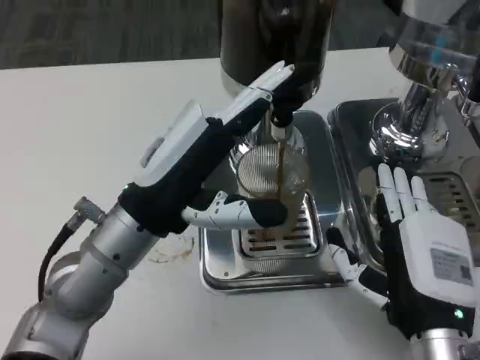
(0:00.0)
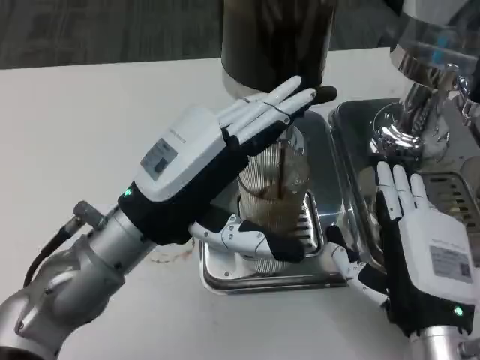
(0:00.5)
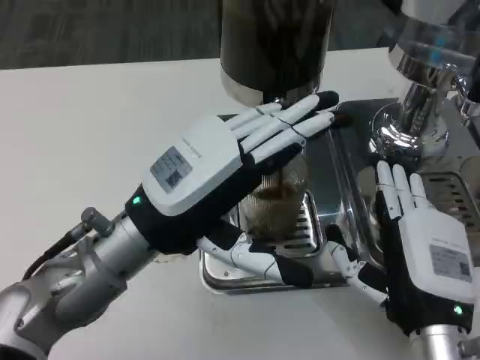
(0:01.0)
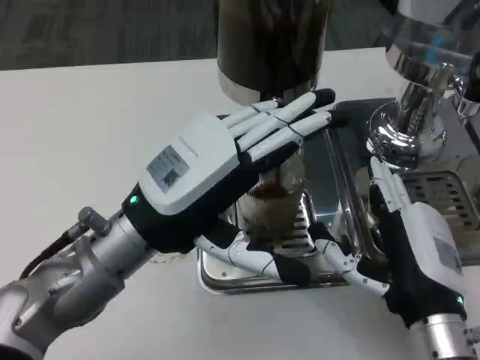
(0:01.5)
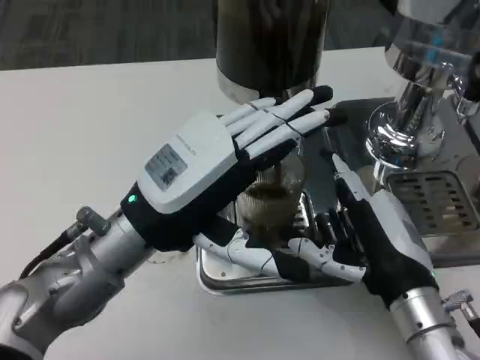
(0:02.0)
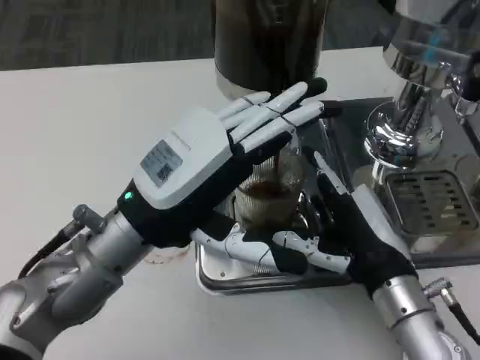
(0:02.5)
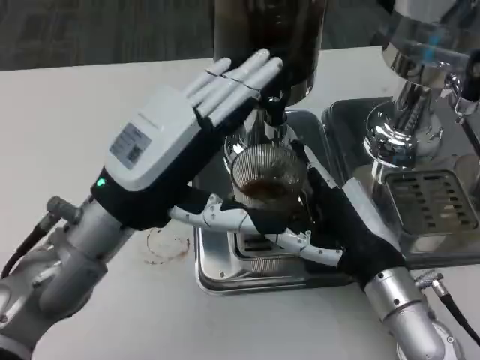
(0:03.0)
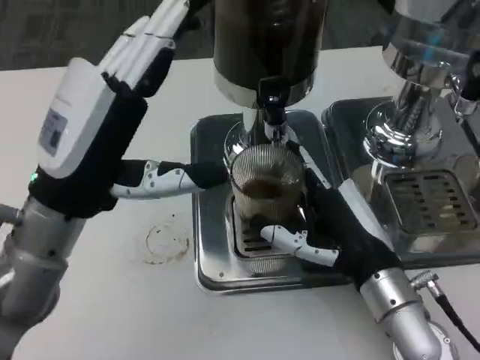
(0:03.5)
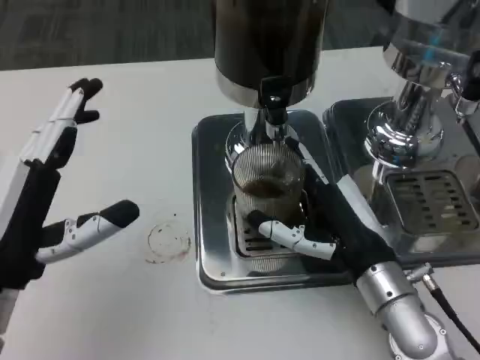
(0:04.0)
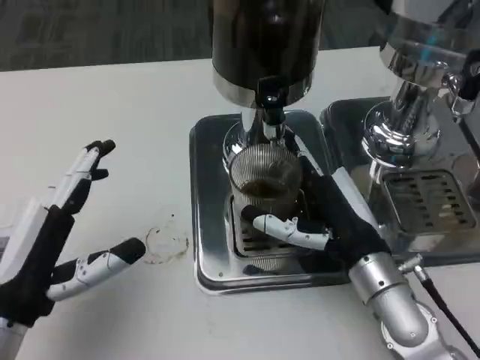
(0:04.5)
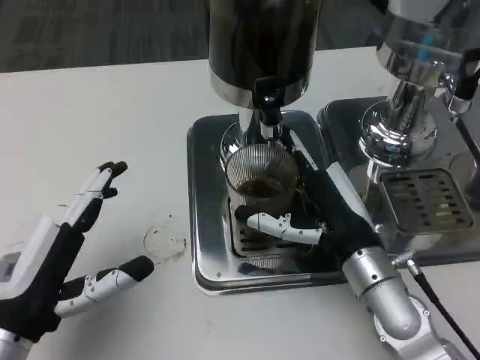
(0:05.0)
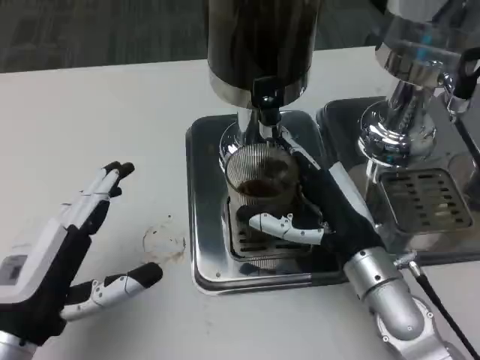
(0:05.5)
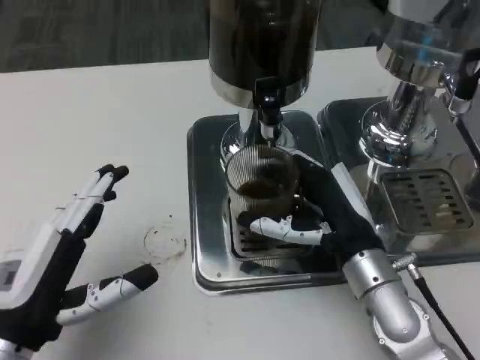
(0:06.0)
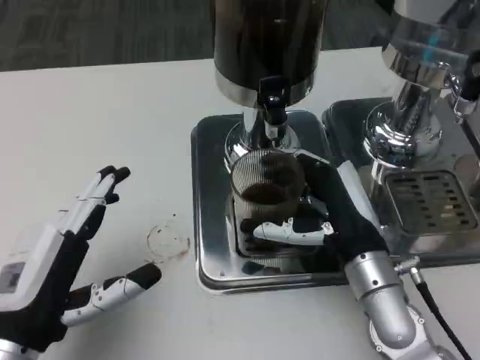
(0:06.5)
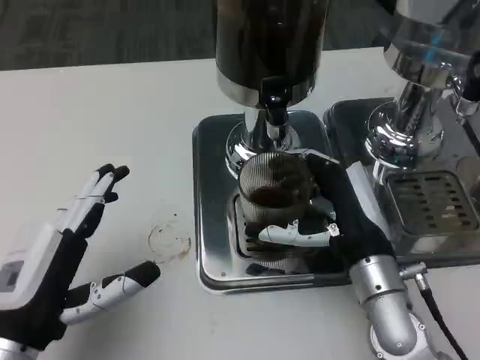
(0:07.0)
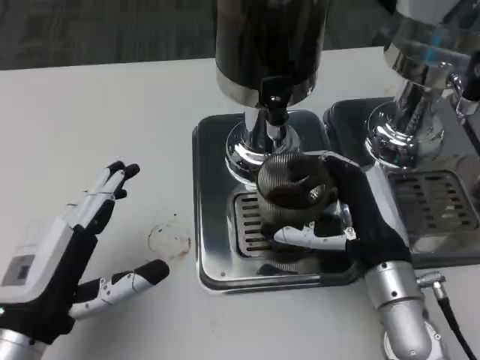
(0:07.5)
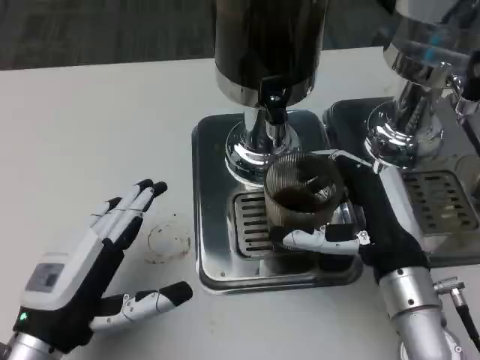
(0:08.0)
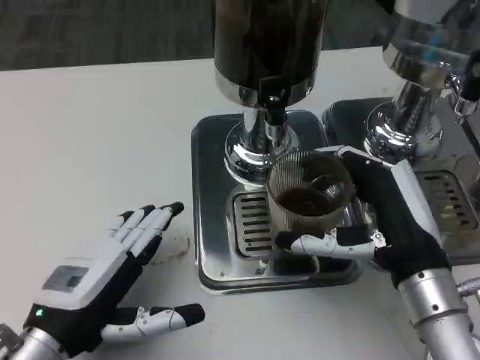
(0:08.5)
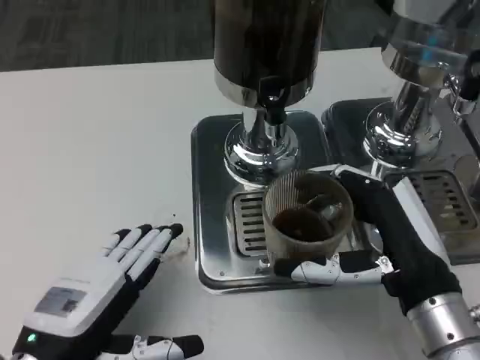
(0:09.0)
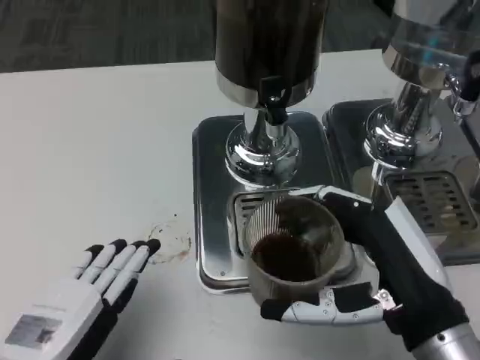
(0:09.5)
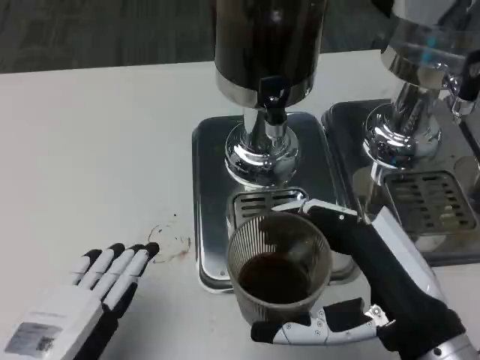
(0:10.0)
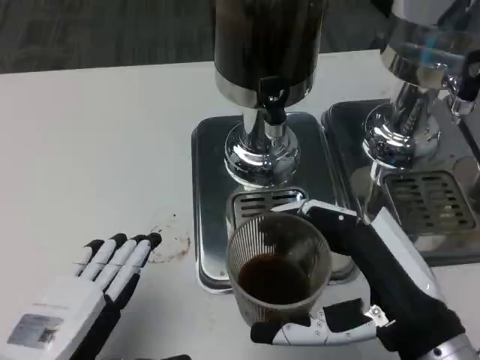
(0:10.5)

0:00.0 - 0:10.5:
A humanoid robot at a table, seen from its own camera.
Task of the whole recording: Grasp the cup under the faucet to collect the drink, then remove the cup.
0:02.0 - 0:04.0: The left hand heads to the left and backward, covering some 10 cm.
0:04.0 - 0:06.5: The left hand moves some 5 cm.
0:06.5 - 0:08.5: The right hand ends up some 5 cm from where it was.
0:08.5 - 0:10.5: Both hands move backward, approximately 5 cm.

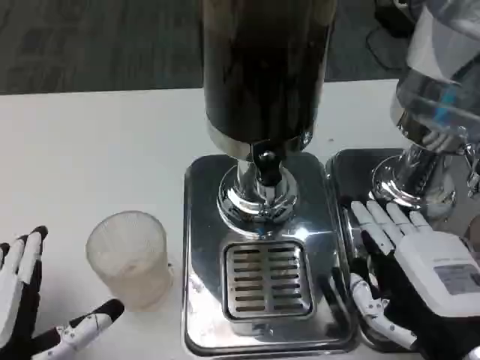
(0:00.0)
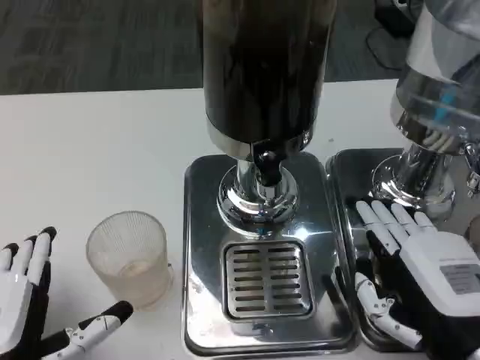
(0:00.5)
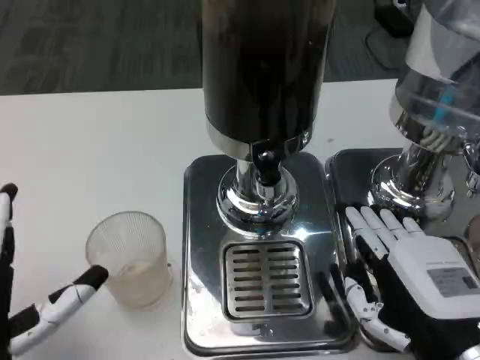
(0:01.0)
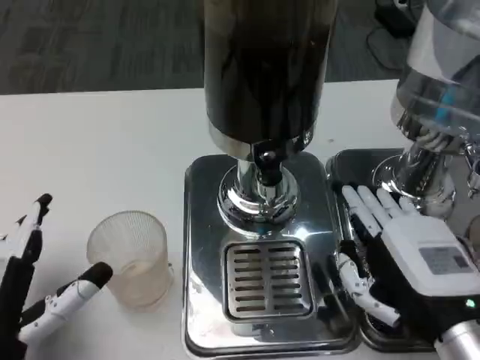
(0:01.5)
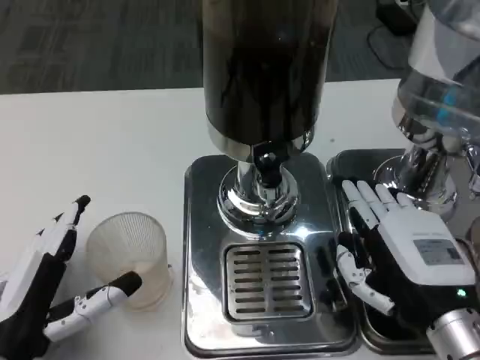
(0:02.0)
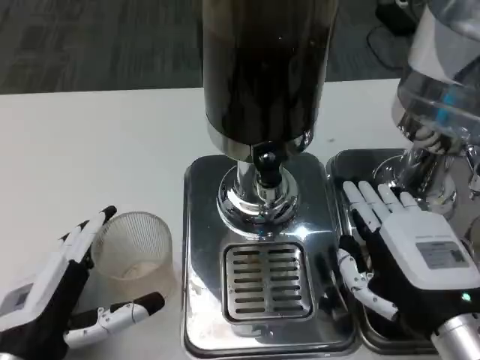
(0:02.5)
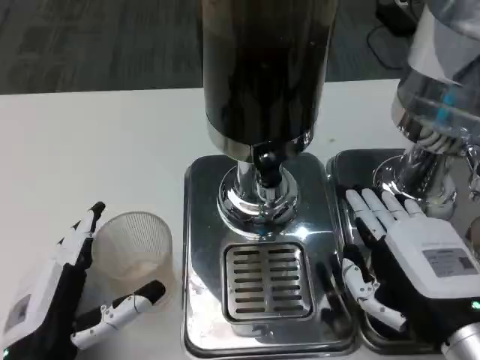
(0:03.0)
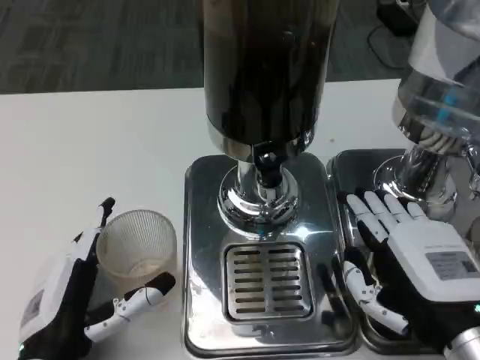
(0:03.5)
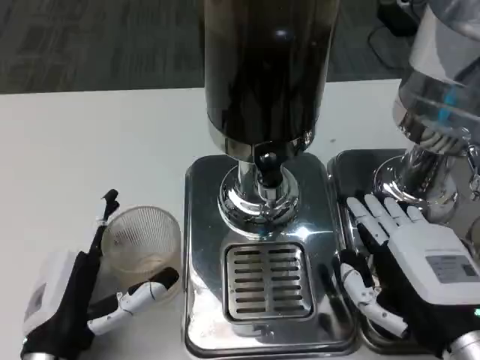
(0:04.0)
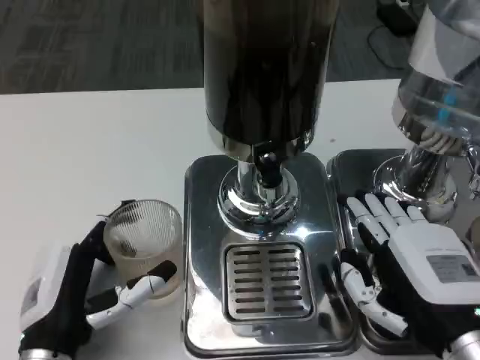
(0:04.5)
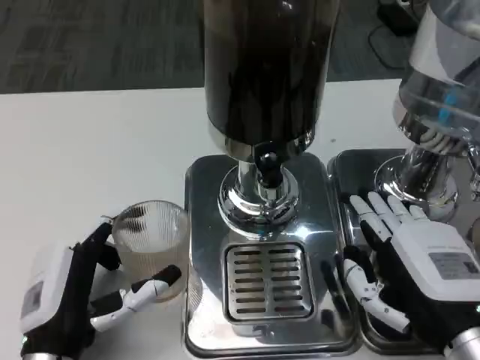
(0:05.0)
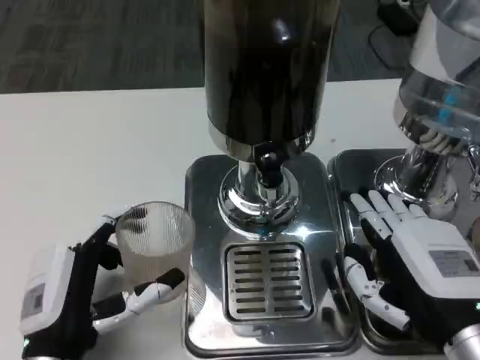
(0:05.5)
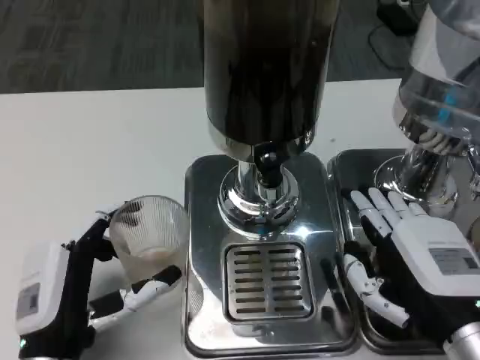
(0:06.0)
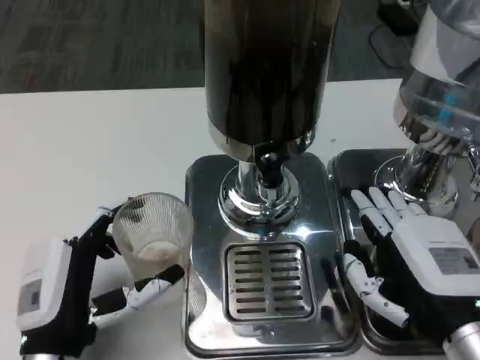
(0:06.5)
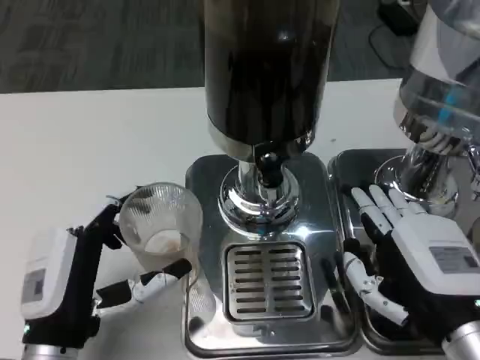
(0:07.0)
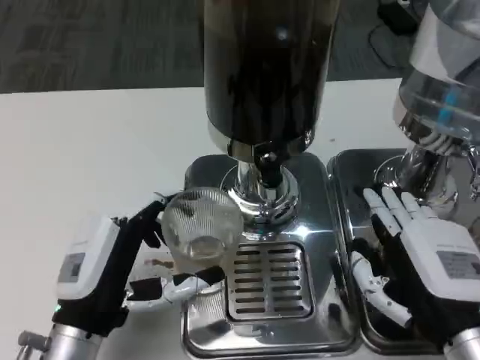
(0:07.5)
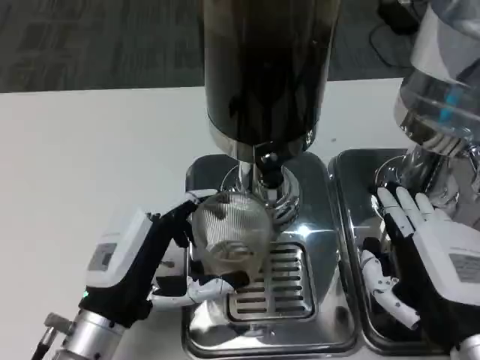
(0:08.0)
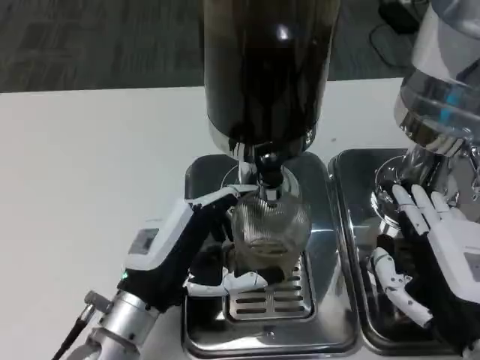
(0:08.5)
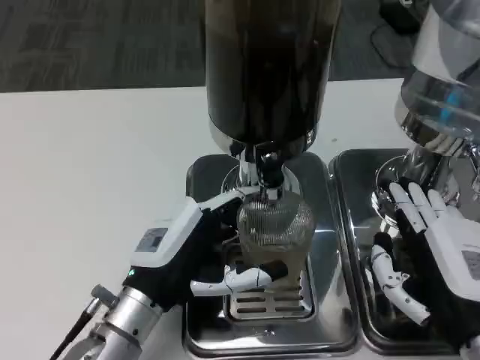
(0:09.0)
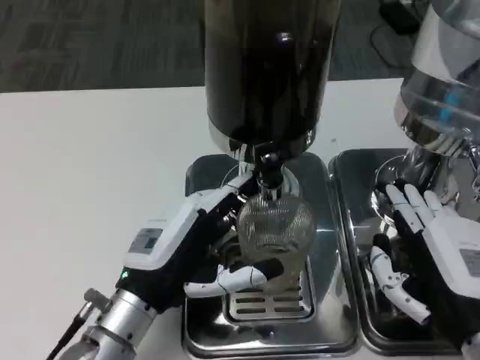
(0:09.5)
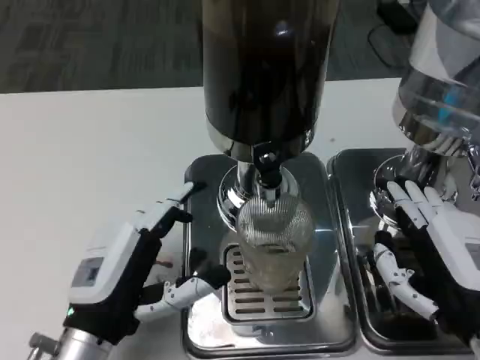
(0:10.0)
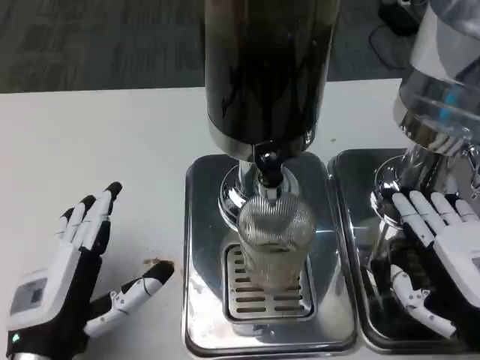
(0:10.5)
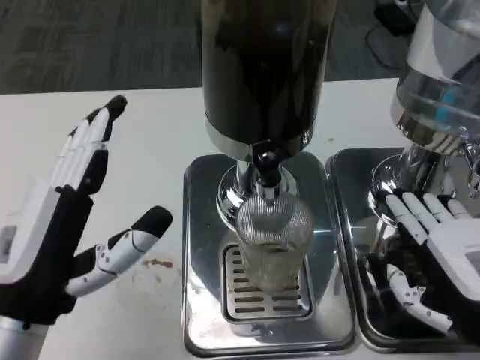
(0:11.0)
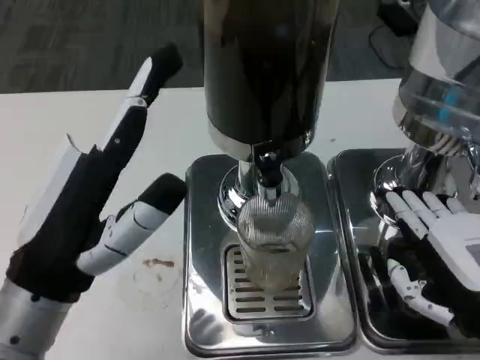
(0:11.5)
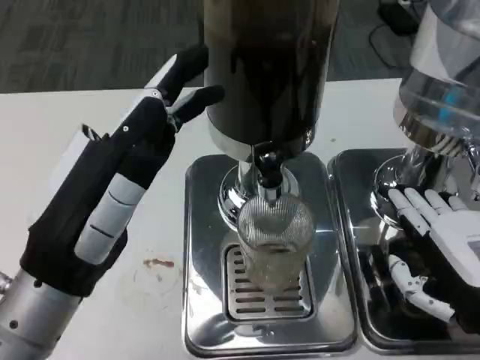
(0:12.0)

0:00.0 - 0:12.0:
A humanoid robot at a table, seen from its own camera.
Task of the whole recording: Grasp the cup under the faucet to collect the drink, then remove the cup.
0:00.0 - 0:02.0: The left hand moves some 5 cm.
0:02.0 - 0:04.0: The left hand ends up approximately 5 cm from where it was.
0:04.0 - 0:06.0: There are only small adjustments of the hands.
0:06.0 - 0:08.0: The left hand ends up about 5 cm from where it was.
0:10.0 - 0:12.0: The left hand goes approximately 10 cm upward.

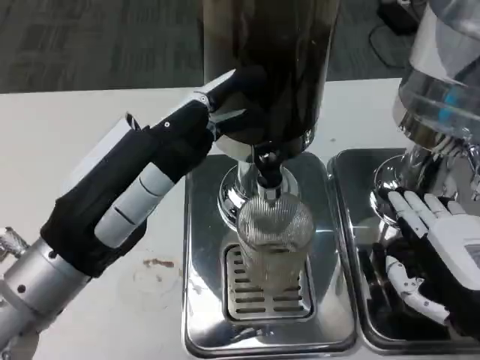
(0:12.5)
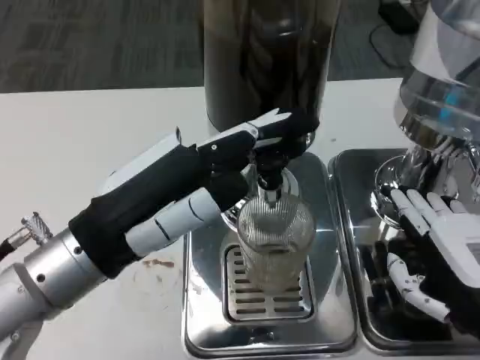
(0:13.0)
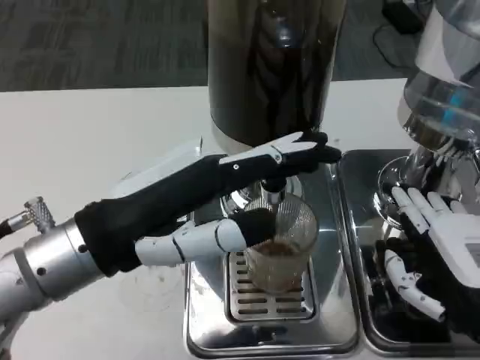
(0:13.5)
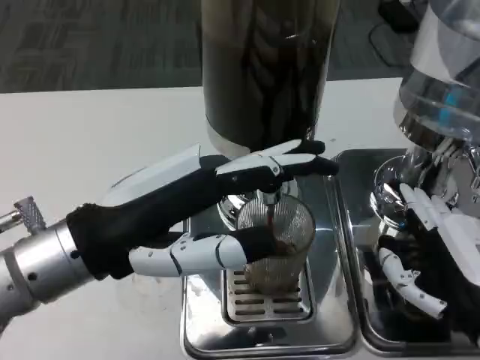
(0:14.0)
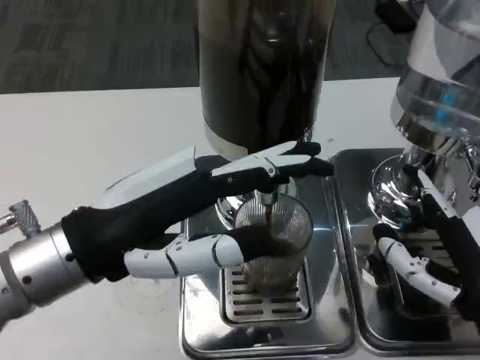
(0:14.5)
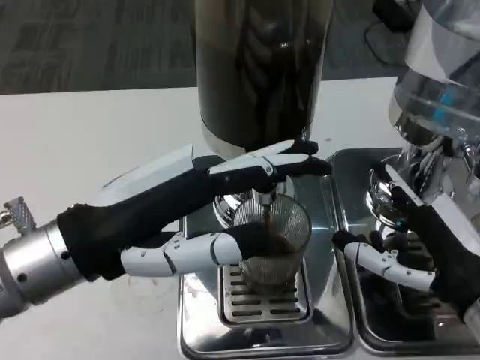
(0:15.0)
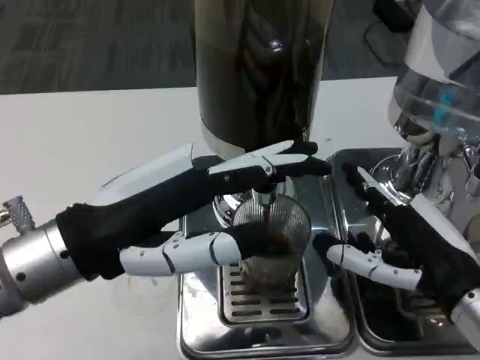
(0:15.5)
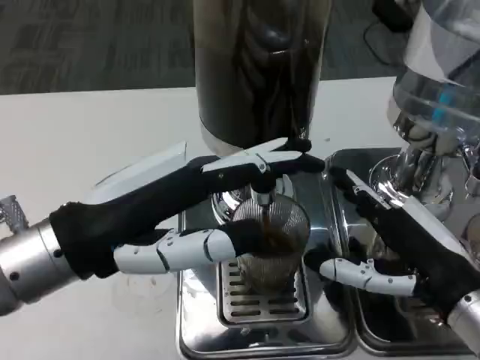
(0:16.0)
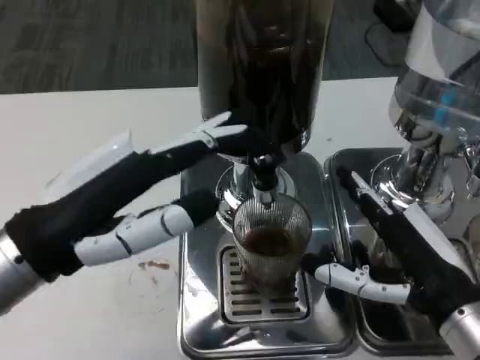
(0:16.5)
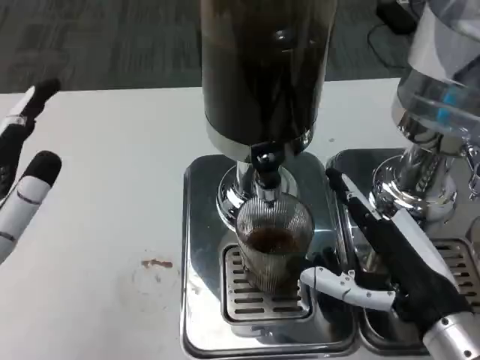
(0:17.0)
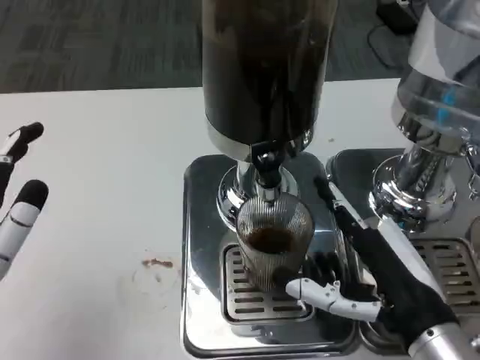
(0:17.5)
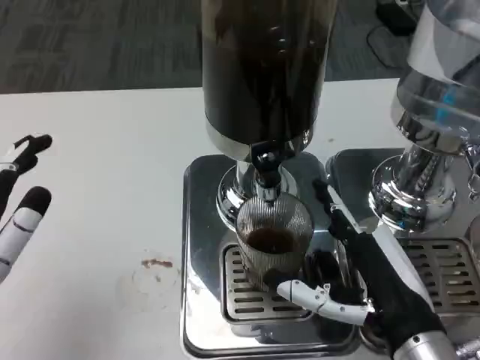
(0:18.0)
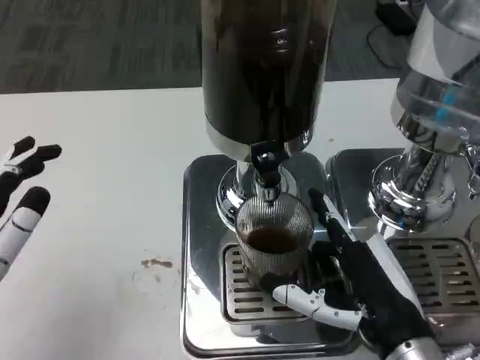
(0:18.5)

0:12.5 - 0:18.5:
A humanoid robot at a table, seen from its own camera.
Task of the whole recording: Grasp the cup under the faucet to collect the drink, then remove the cup.
0:16.5 - 0:18.5: The right hand changes place by some 5 cm. The left hand shifts roughly 10 cm downward, backward and to the left.
